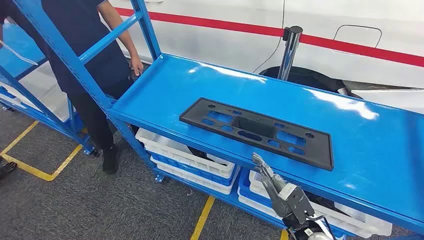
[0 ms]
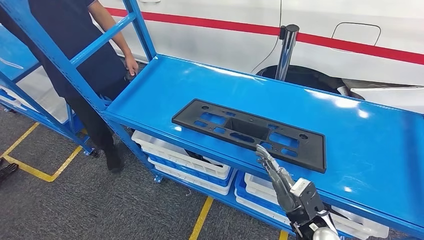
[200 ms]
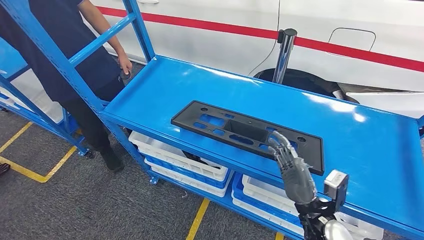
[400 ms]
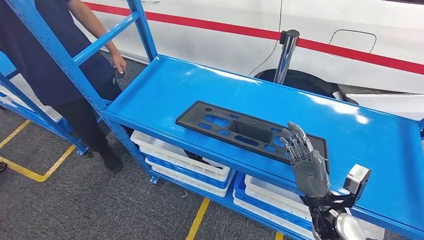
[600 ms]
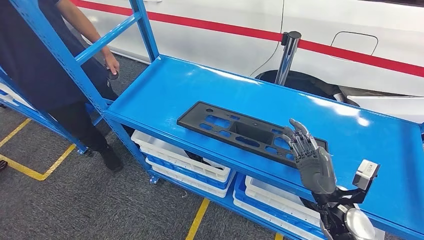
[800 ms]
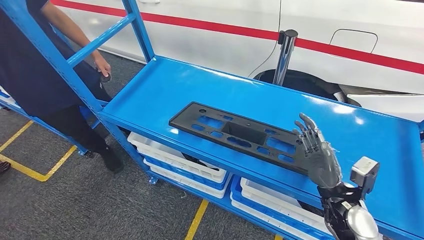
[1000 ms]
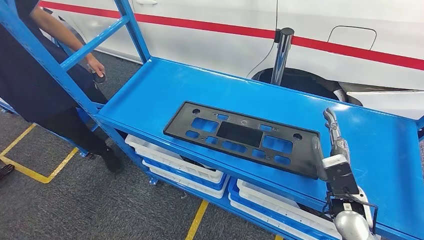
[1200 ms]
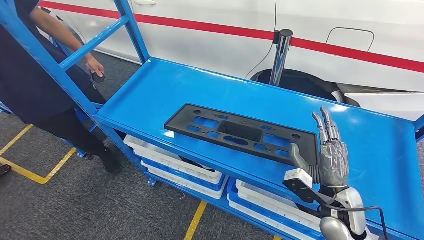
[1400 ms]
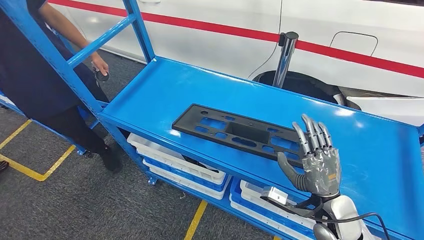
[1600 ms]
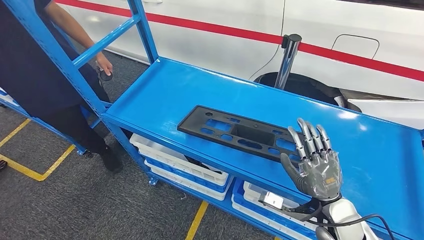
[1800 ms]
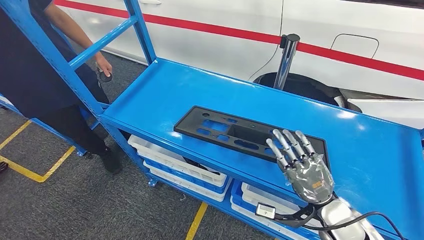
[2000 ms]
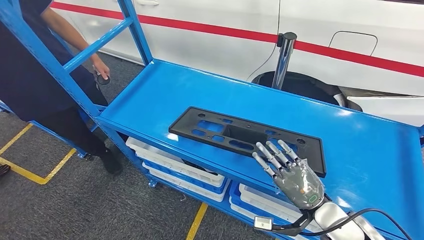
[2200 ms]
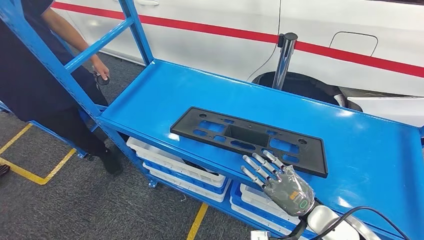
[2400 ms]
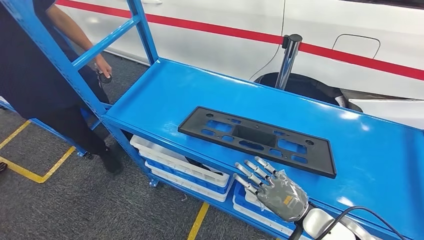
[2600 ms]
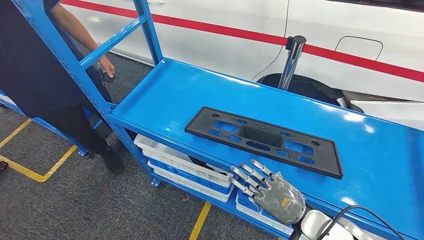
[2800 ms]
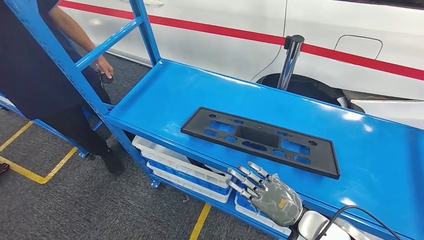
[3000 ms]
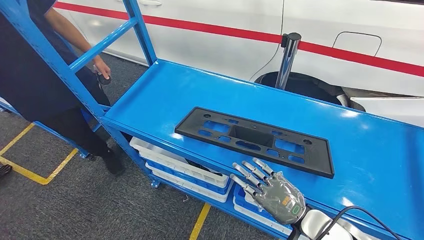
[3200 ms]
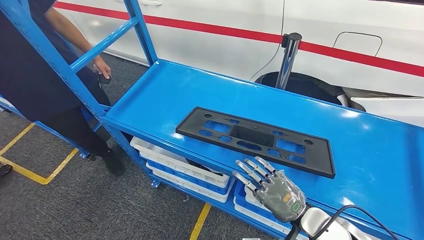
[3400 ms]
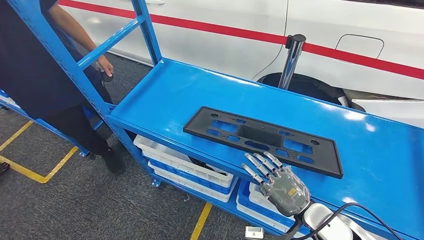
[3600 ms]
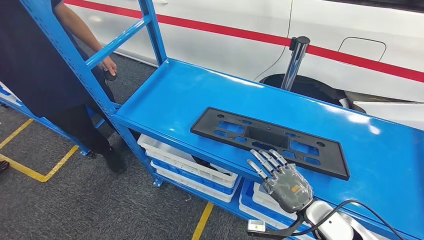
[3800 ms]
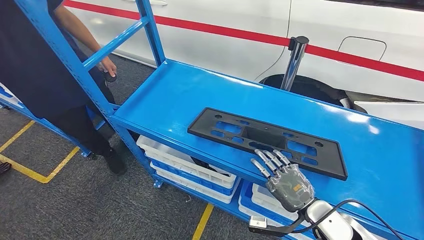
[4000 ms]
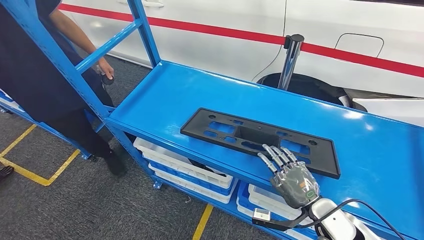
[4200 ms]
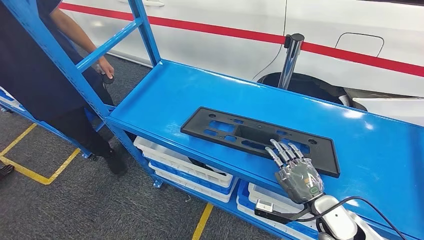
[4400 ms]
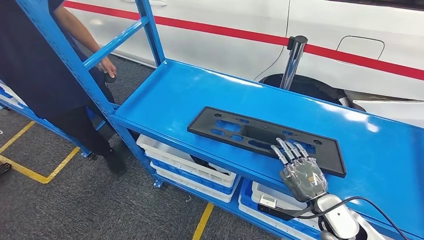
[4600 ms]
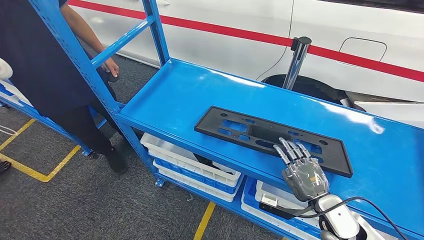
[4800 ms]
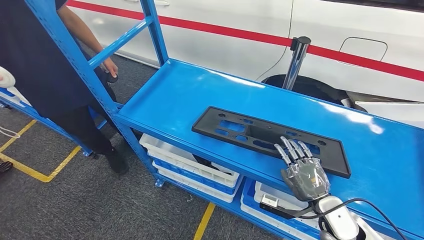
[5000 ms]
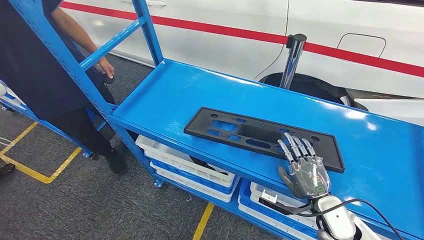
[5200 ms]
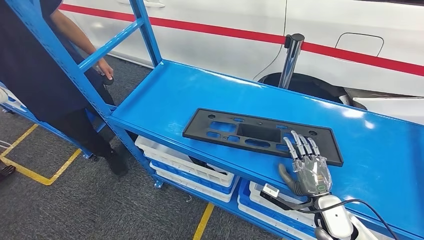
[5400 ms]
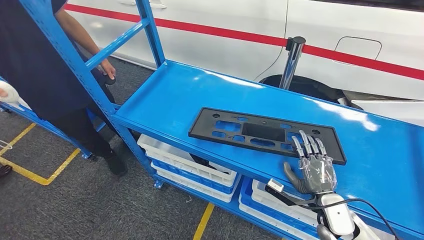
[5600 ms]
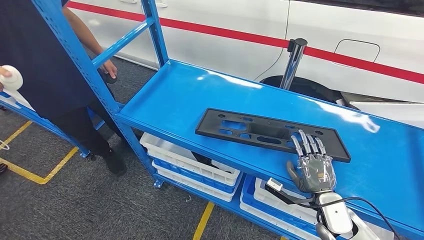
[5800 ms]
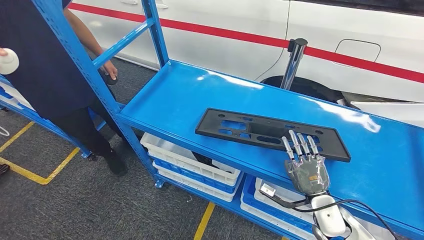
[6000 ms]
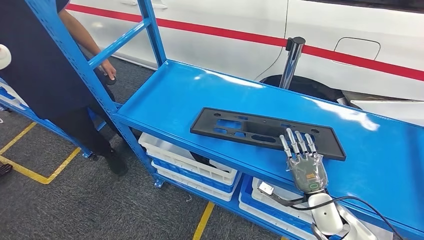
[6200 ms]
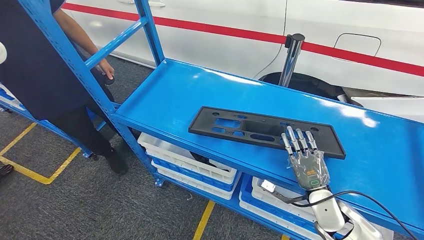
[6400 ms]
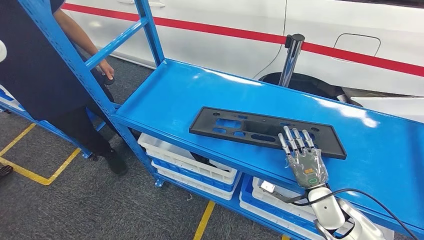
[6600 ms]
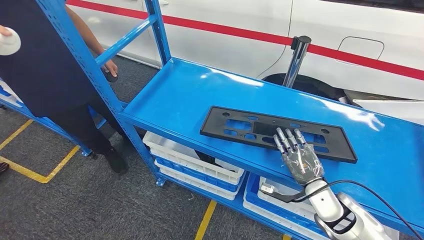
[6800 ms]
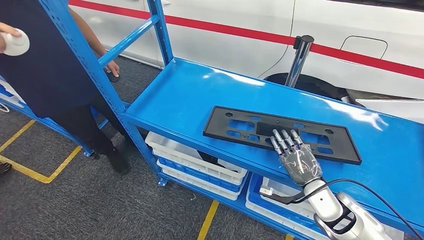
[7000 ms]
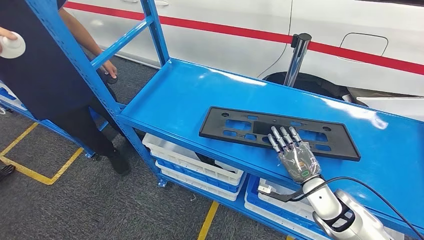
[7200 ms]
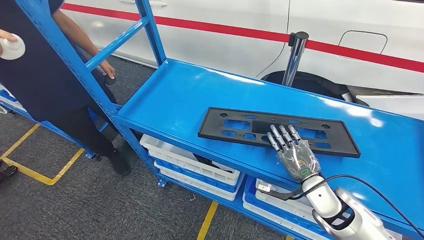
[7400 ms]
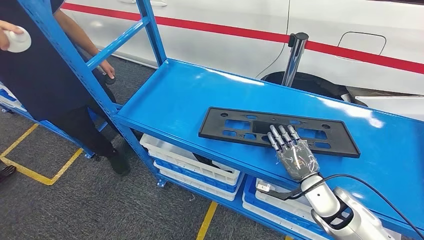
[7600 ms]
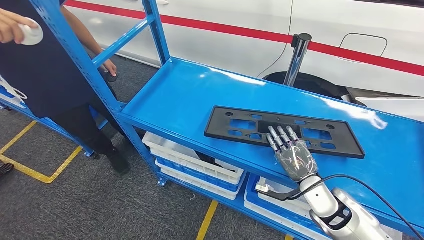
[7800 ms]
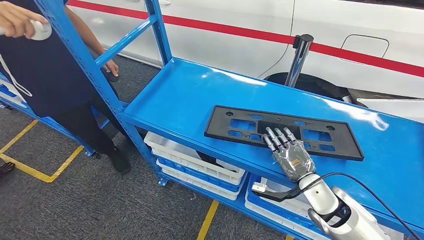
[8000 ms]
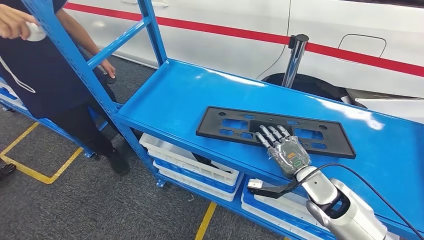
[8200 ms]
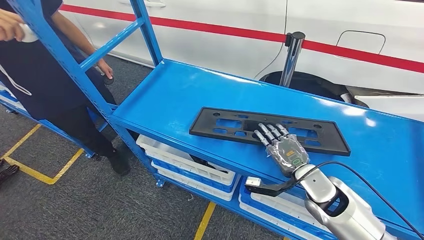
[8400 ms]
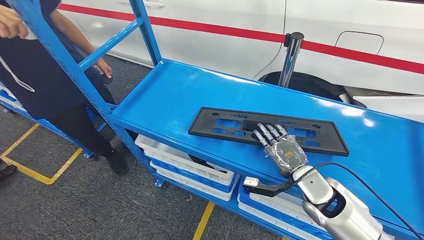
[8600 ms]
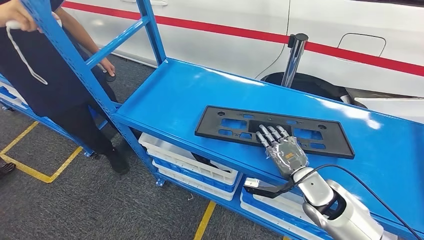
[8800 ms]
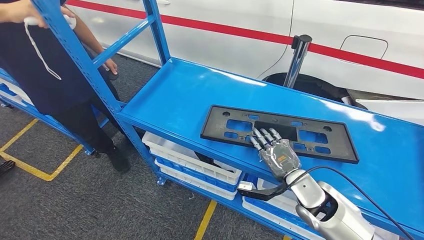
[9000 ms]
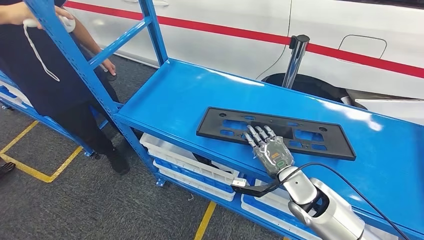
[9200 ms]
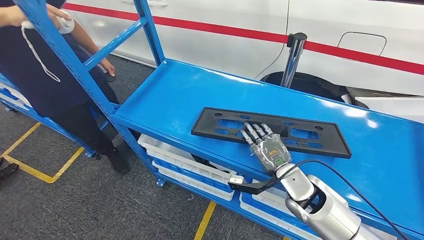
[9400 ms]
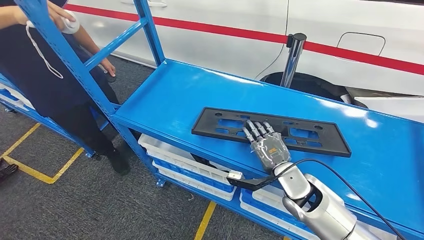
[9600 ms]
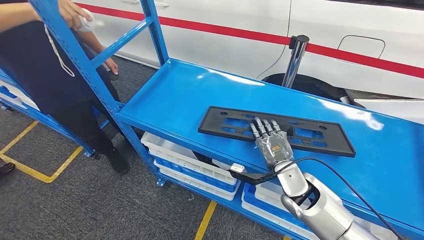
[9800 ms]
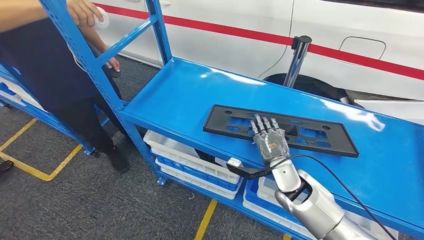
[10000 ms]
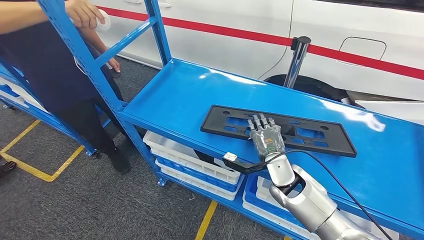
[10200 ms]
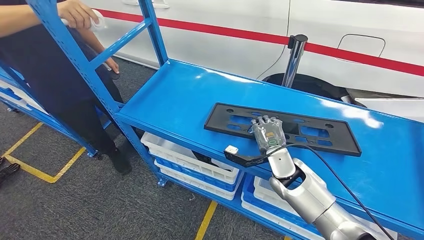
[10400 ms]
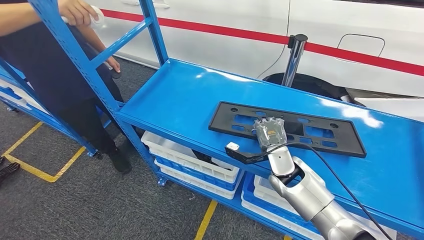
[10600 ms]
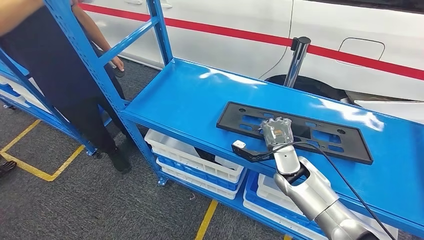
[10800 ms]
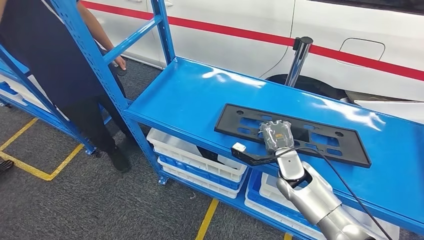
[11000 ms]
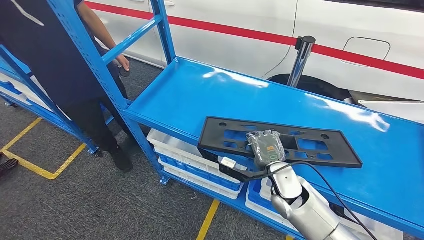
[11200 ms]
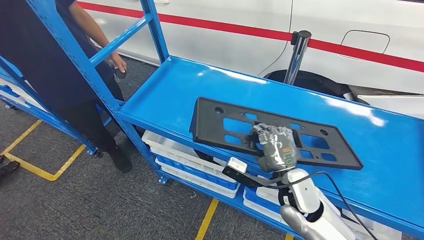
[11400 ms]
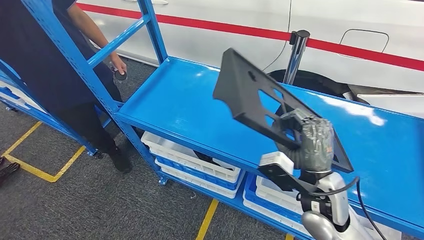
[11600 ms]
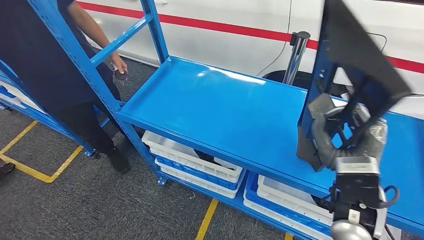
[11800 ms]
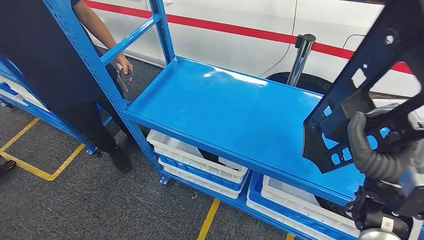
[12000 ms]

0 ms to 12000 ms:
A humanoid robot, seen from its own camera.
3000 ms to 4400 ms: The right hand moves roughly 5 cm.

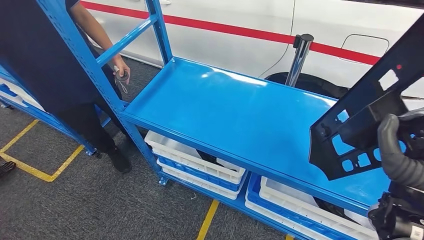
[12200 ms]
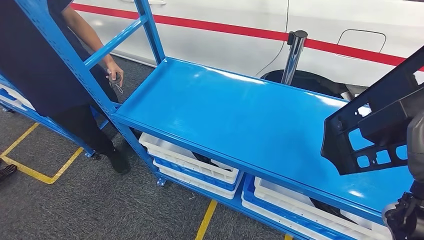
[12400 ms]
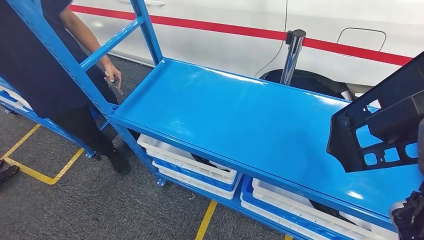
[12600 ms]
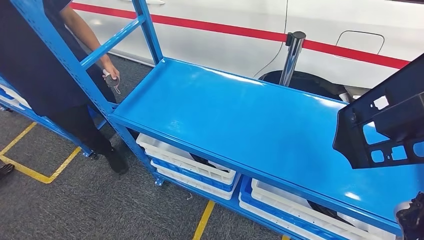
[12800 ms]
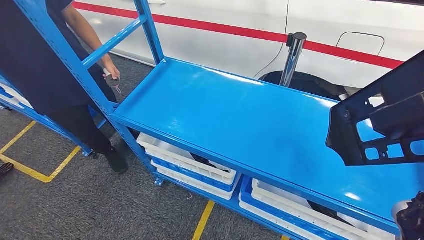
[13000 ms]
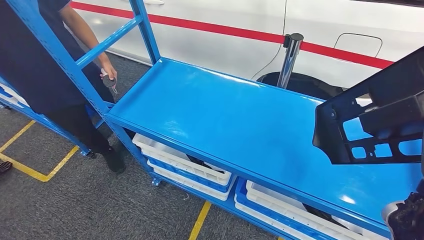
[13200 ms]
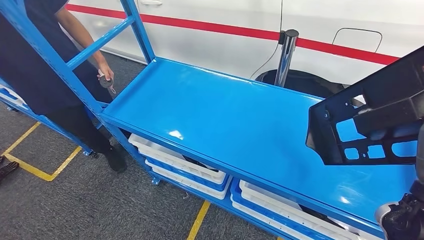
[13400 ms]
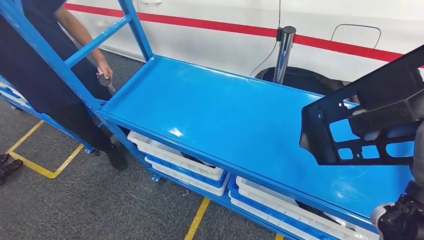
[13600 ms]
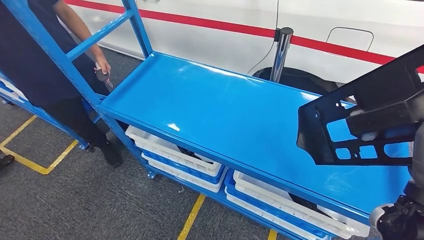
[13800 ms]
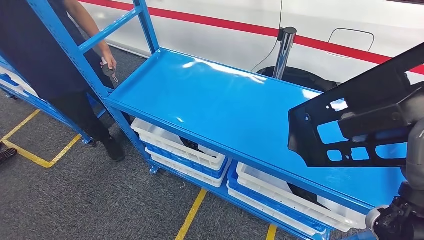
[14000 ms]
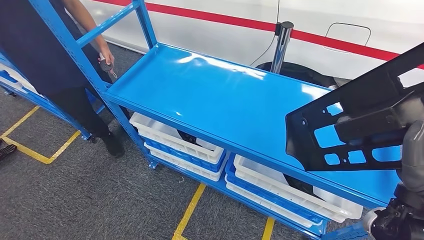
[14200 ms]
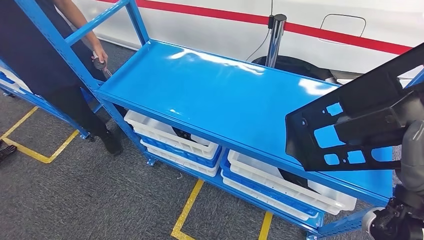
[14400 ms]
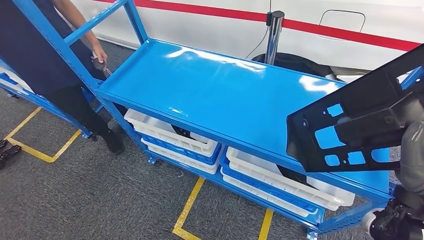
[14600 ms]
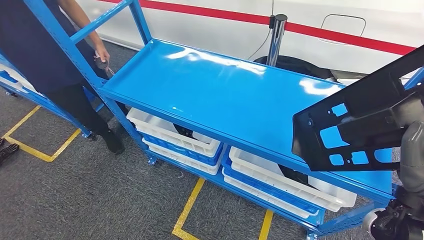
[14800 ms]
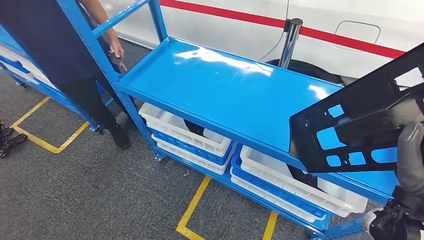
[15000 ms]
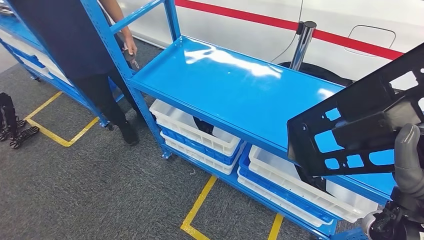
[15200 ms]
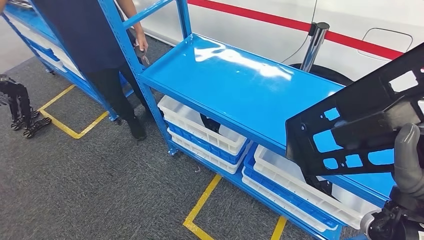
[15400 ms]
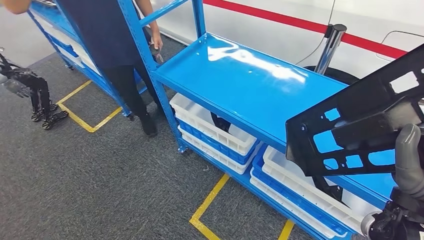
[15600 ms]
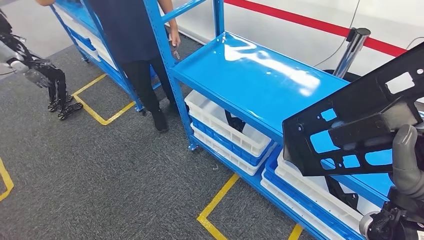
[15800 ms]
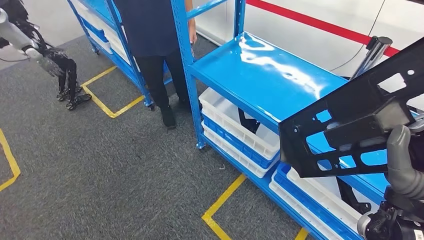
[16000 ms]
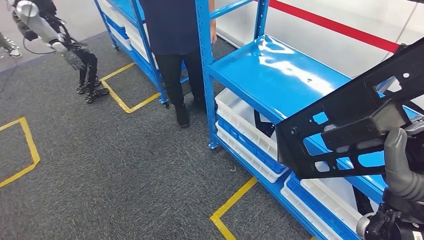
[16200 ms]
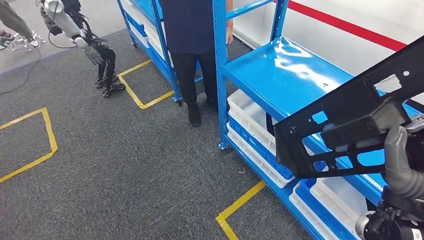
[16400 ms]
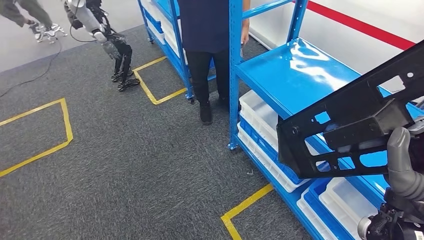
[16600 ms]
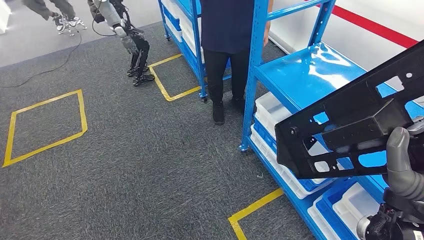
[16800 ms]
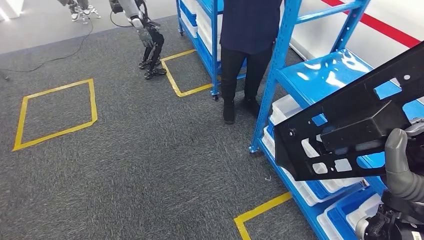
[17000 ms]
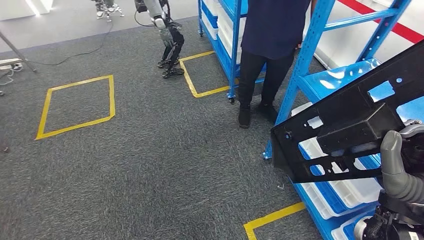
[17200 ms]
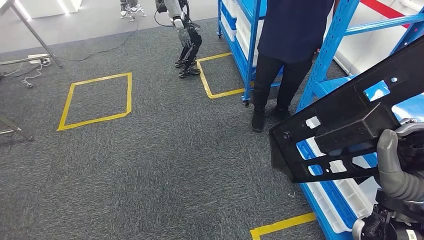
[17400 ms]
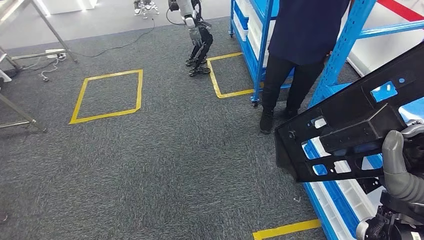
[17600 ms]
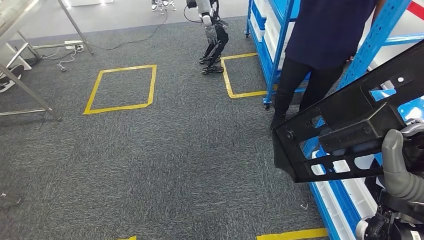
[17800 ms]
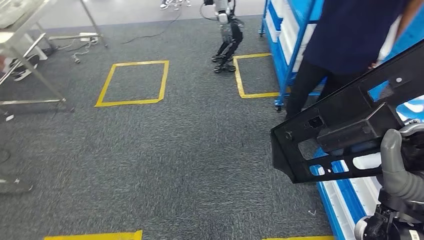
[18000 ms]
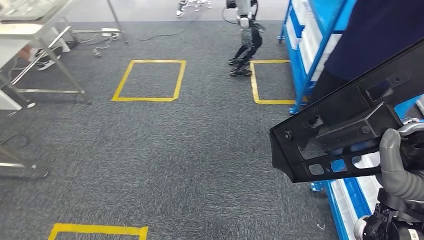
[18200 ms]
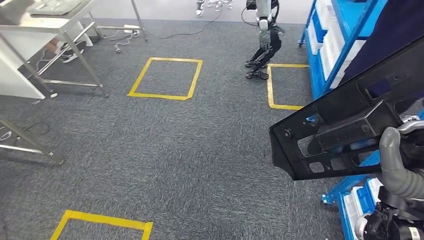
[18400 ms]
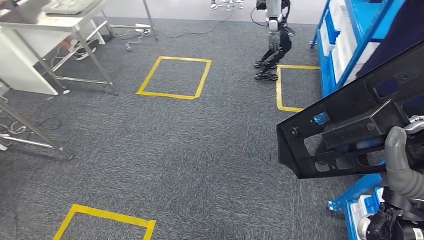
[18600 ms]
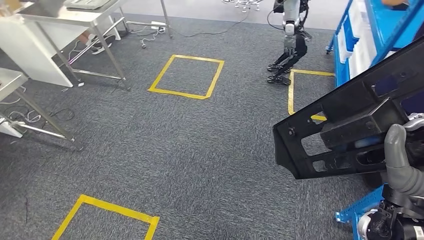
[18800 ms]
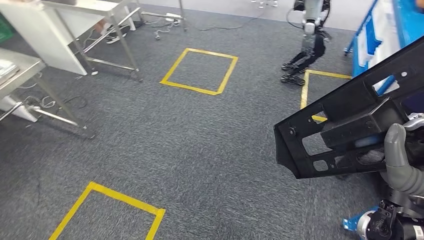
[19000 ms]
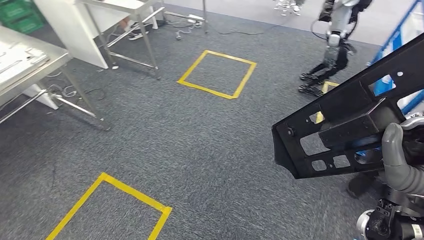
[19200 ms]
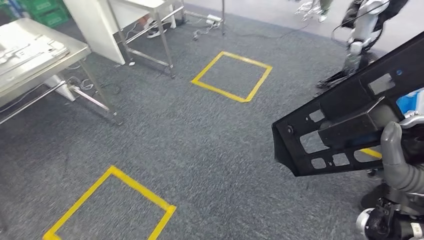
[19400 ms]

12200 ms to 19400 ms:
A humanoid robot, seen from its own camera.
Step, 12200 ms to 15600 ms: Pick up the large material from the shelf.
